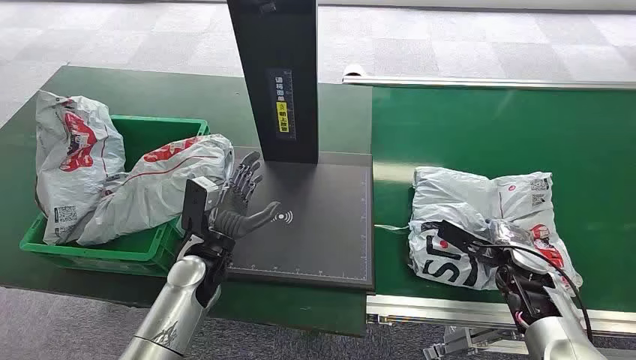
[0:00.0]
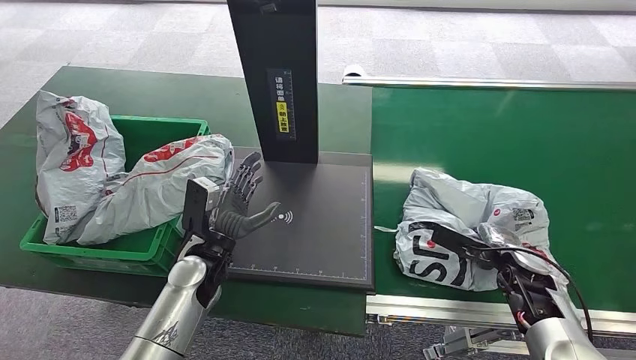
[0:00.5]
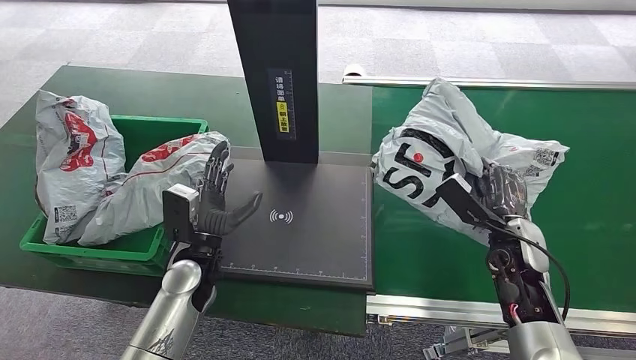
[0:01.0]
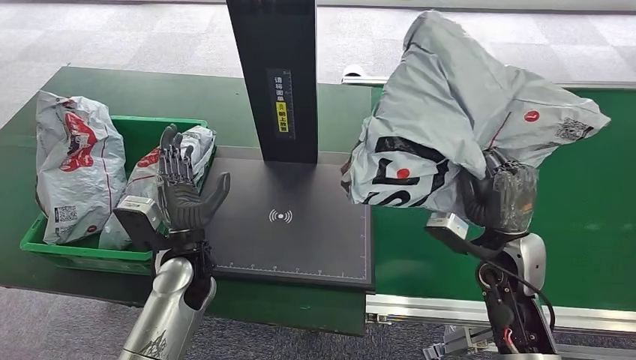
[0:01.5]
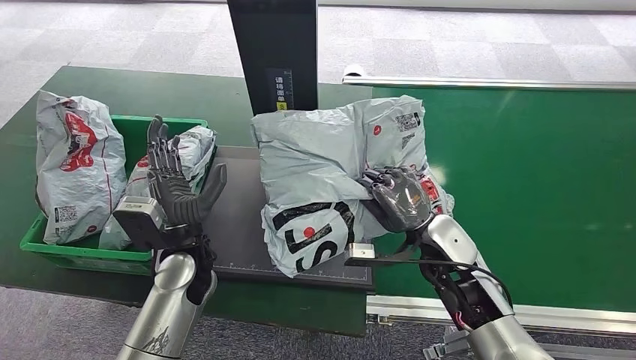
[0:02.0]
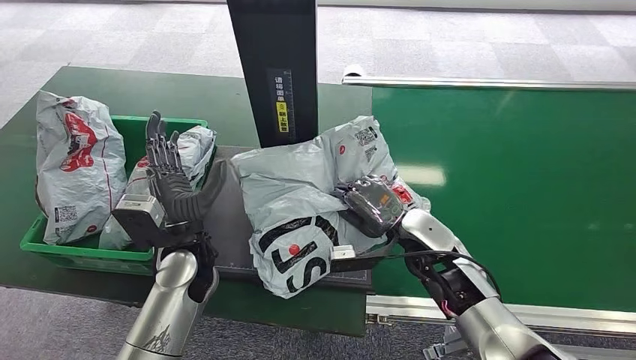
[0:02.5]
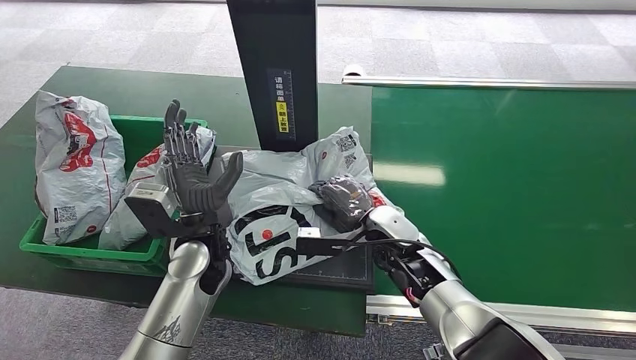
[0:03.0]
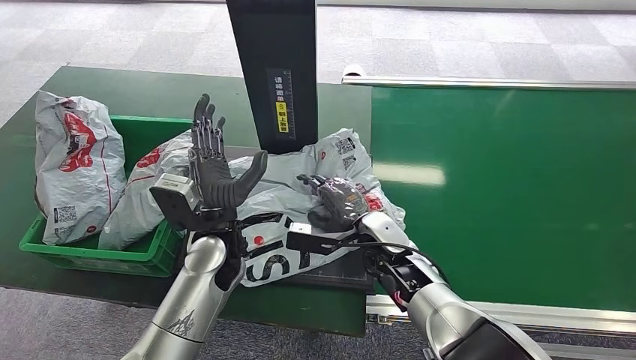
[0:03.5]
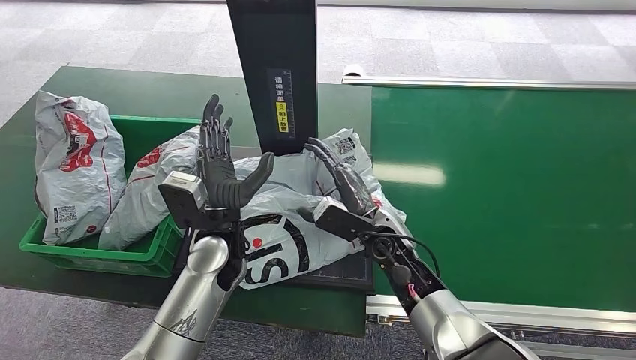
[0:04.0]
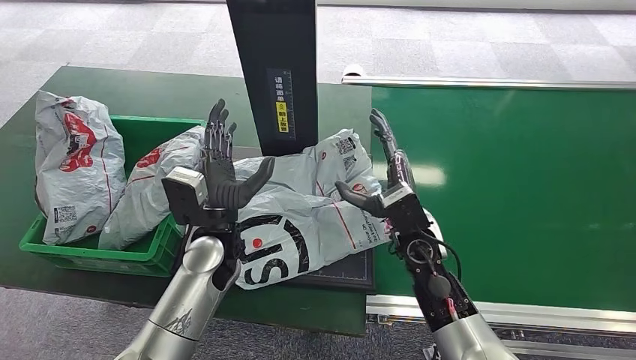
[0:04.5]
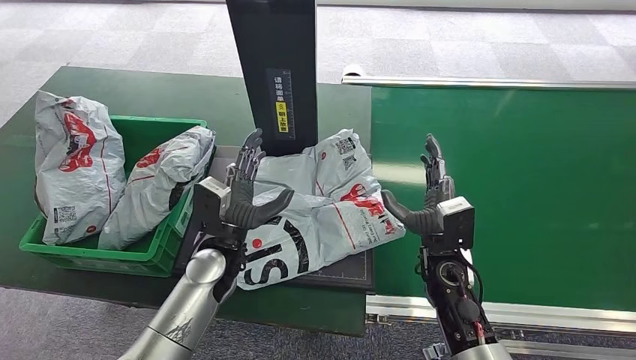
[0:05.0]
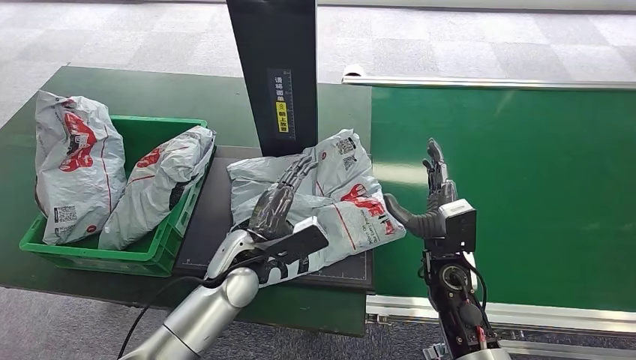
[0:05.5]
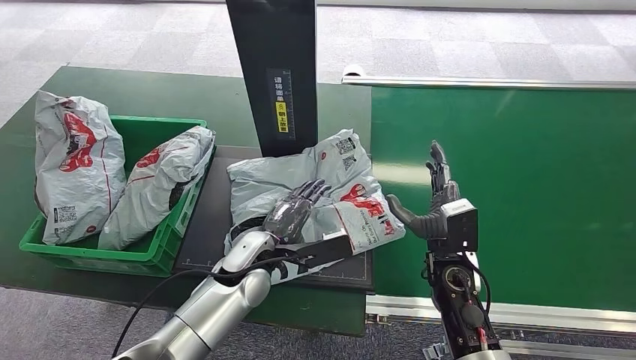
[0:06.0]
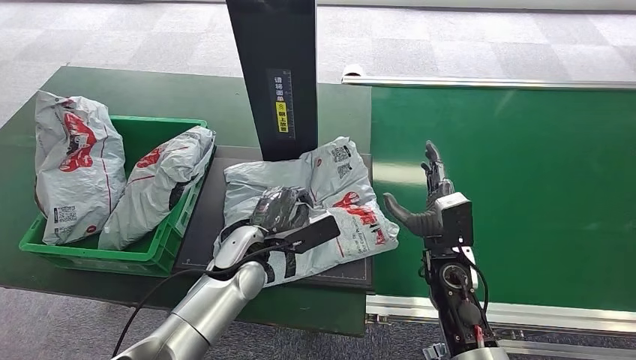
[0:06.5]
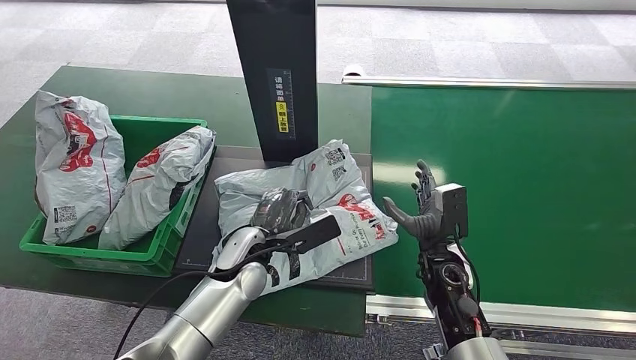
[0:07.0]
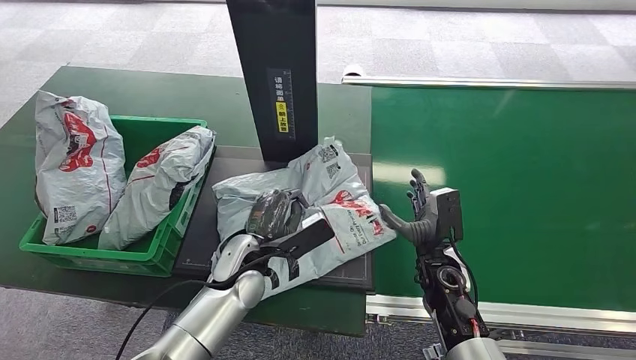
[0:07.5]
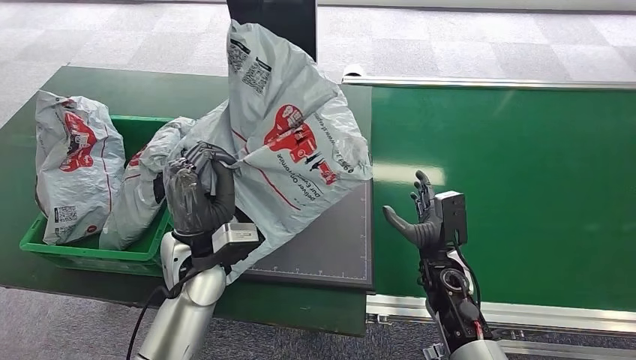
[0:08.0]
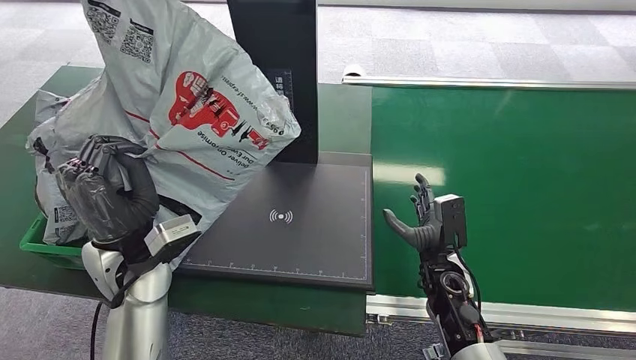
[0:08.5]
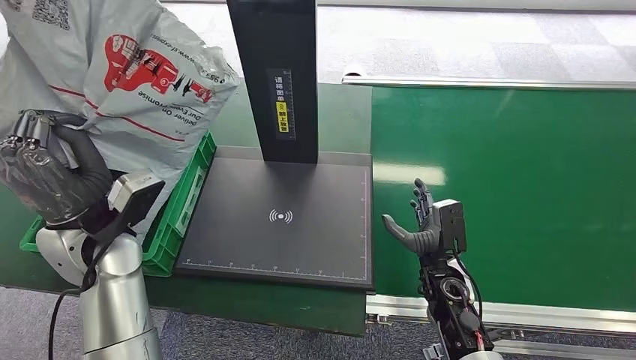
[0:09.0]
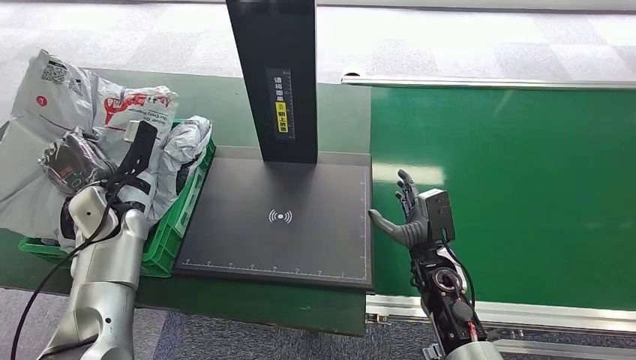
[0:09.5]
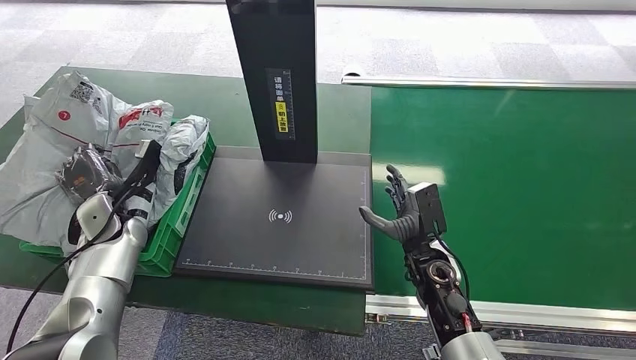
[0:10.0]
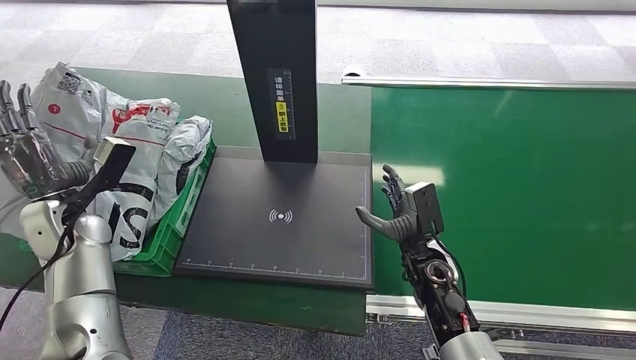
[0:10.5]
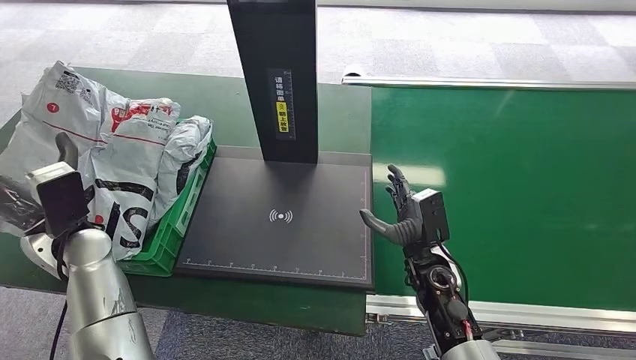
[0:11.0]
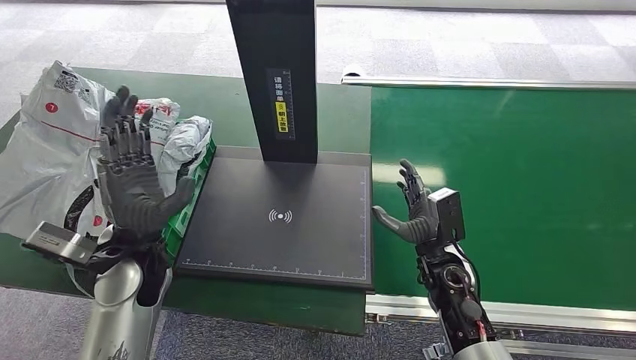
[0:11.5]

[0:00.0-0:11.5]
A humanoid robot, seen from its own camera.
Step, 0:00.0 to 0:01.0: Pick up the package from the conveyor belt.
Step, 0:01.5 to 0:05.0: Place the package onto the inbound machine.
Step, 0:05.5 to 0:08.5: Pick up the package from the inbound machine.
Step, 0:09.0 to 0:11.5: Place the package into the parcel locker.
0:04.0 to 0:06.0: The left hand travels downward by about 5 cm. The right hand shifts roughly 10 cm to the right.
0:09.5 to 0:11.5: The left hand travels to the right and backward by roughly 15 cm.

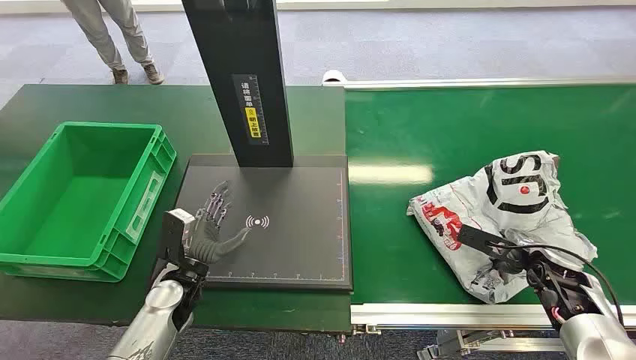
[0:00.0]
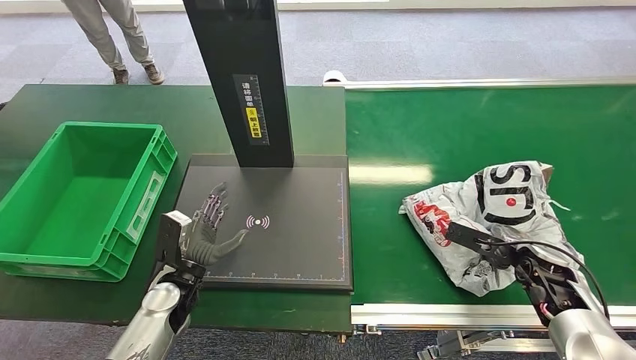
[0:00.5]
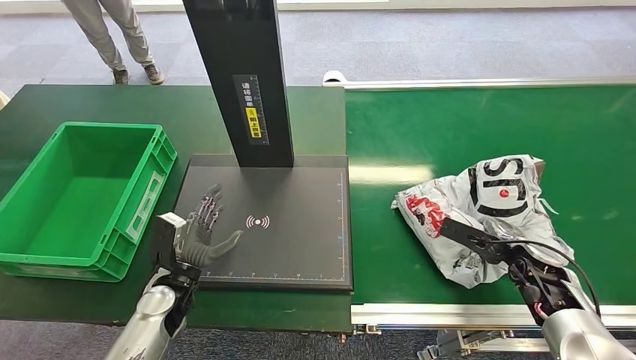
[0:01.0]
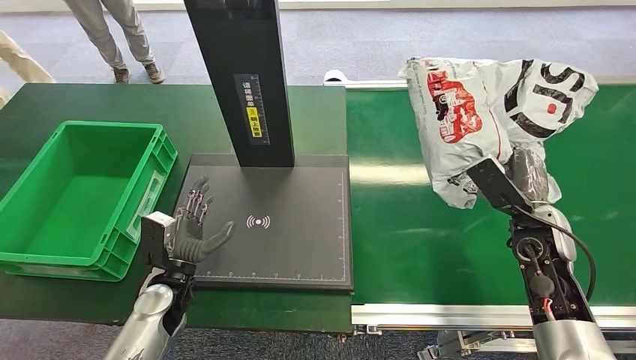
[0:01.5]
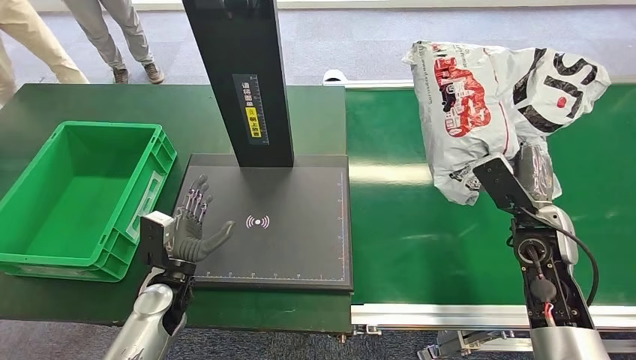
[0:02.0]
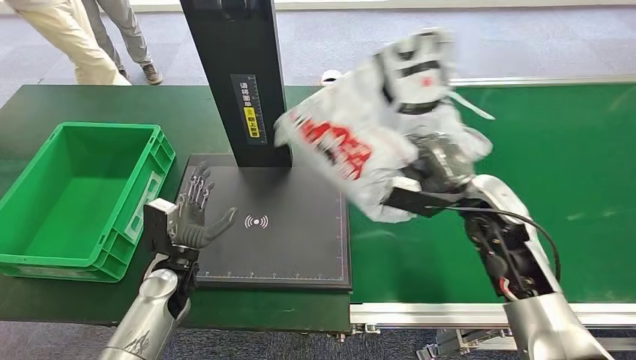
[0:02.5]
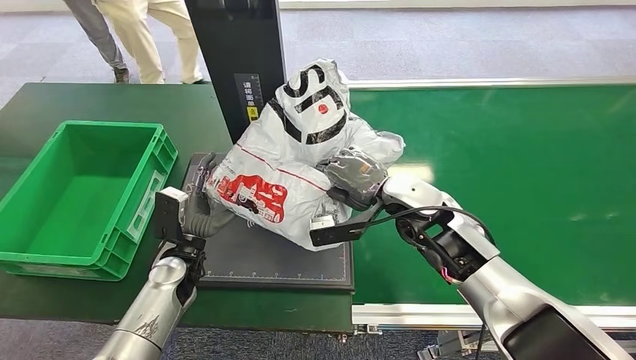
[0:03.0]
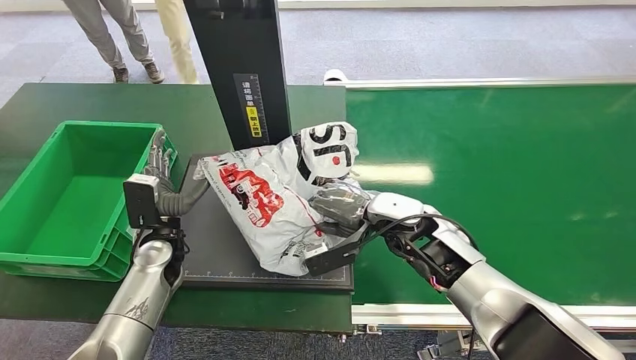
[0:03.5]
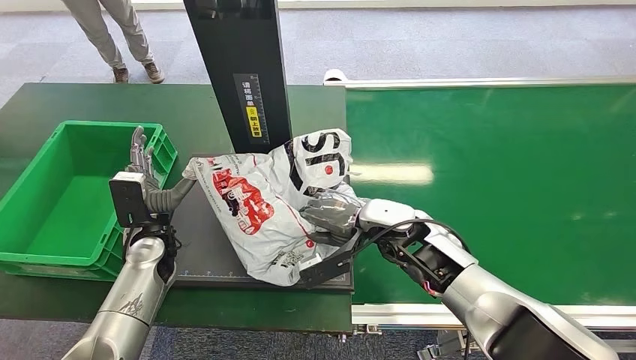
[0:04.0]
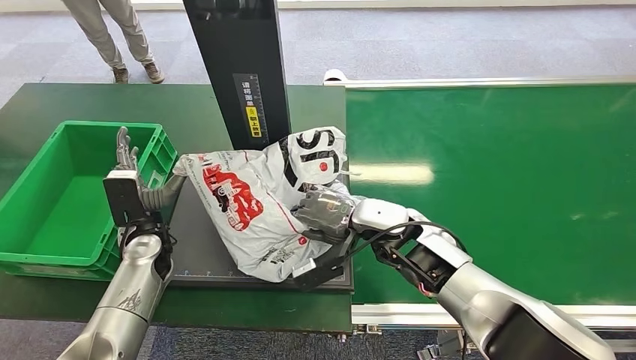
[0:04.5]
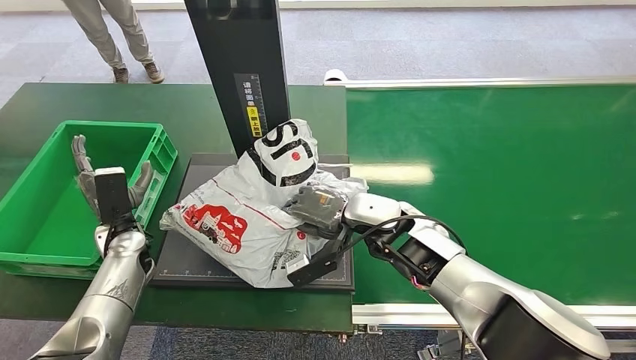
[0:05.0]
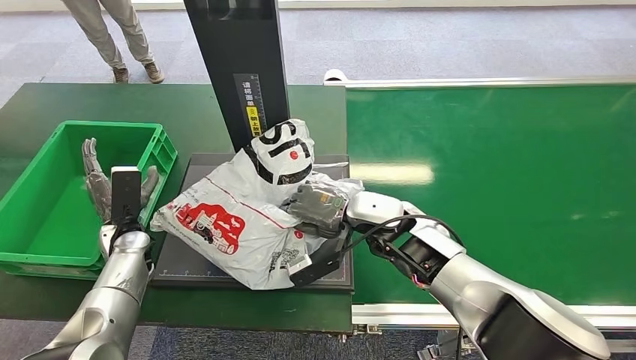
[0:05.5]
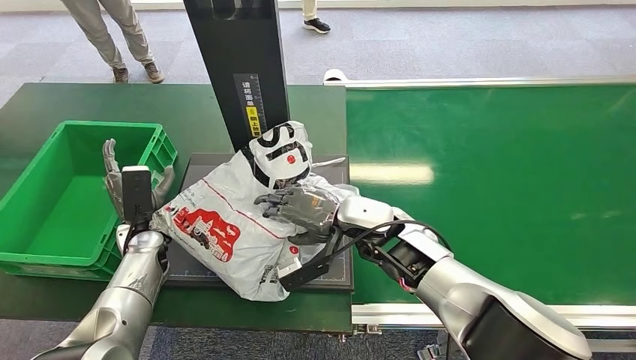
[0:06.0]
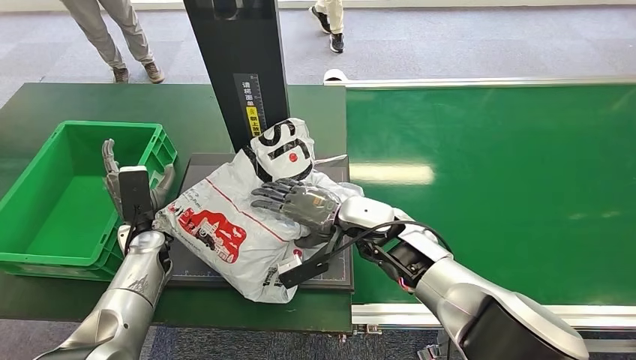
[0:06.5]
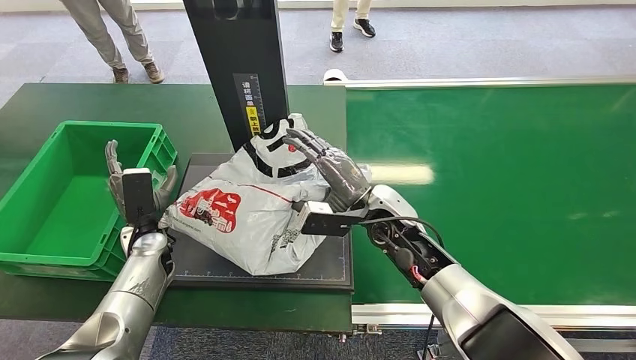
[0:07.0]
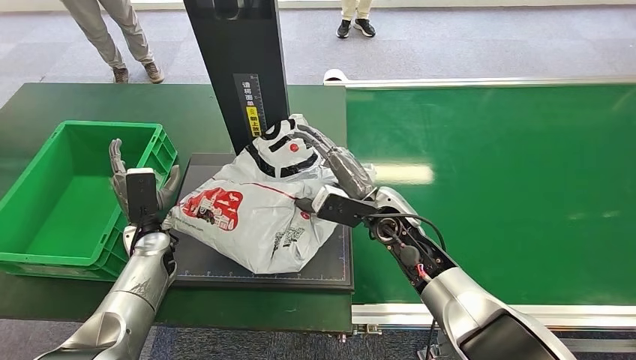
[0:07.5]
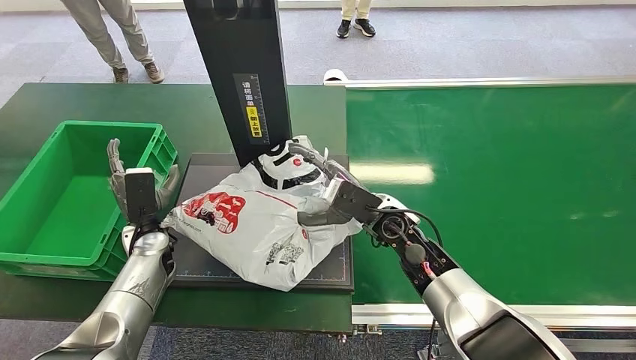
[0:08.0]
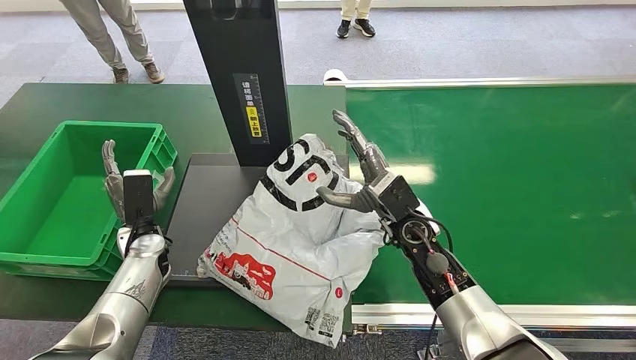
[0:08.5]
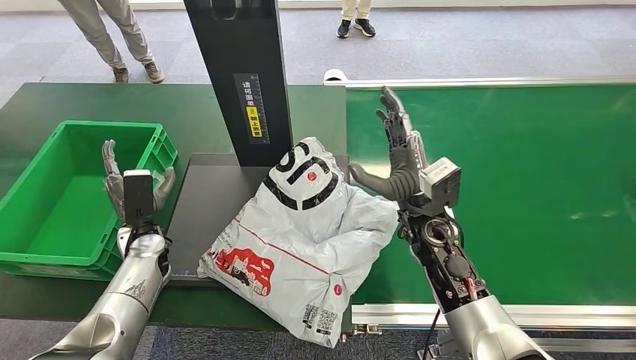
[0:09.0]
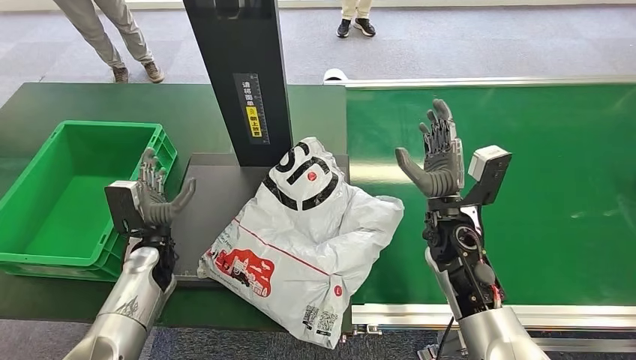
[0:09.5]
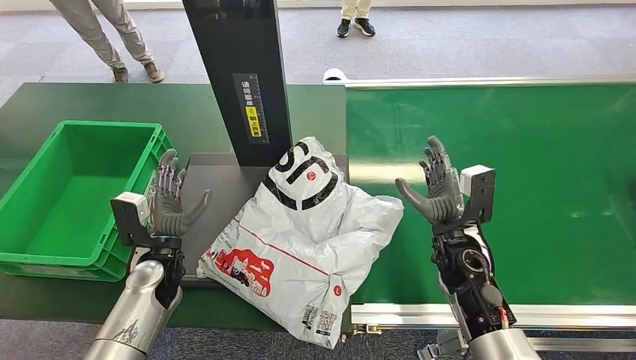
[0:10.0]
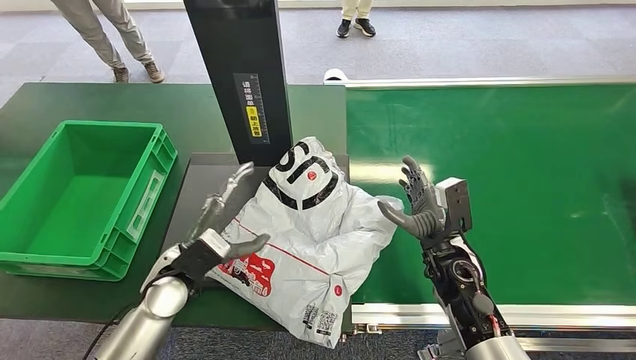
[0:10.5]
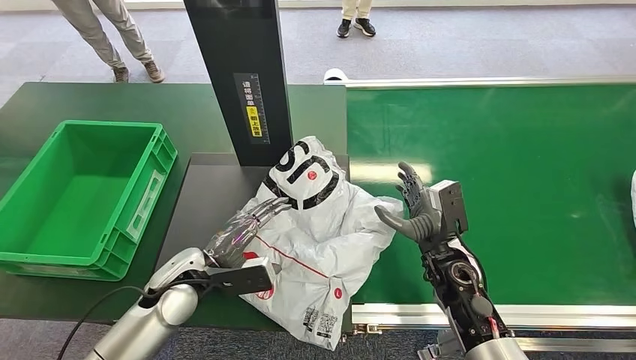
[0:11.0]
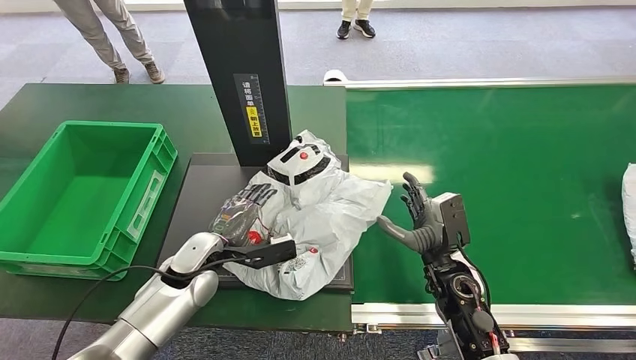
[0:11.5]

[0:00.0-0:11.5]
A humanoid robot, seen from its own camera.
Step, 0:00.0 to 0:01.5: Pick up the package from the conveyor belt.
Step, 0:02.0 to 0:08.0: Place the package onto the inbound machine.
